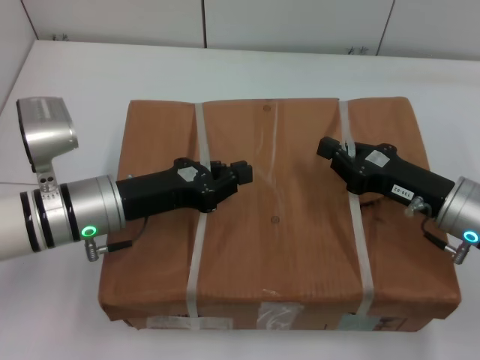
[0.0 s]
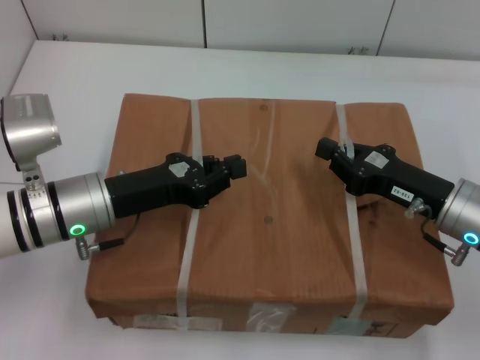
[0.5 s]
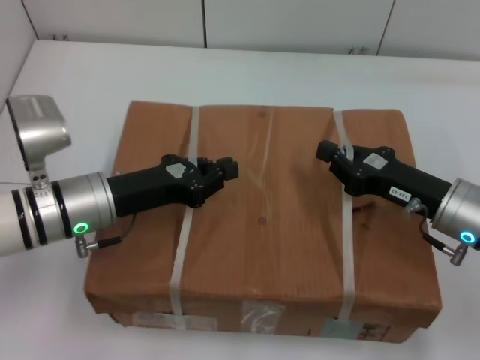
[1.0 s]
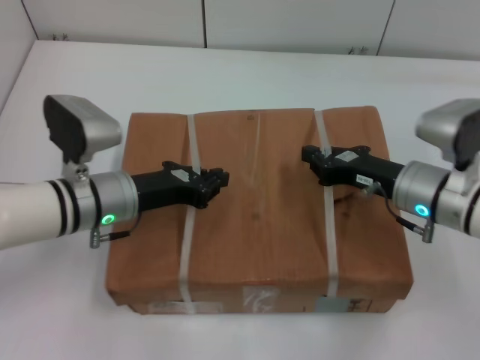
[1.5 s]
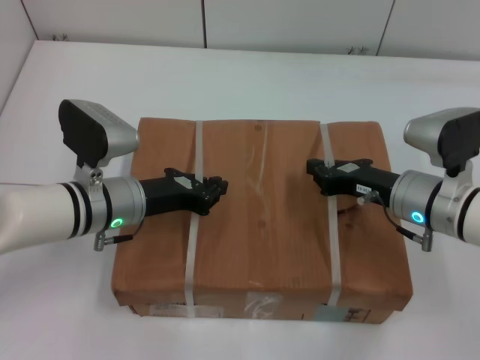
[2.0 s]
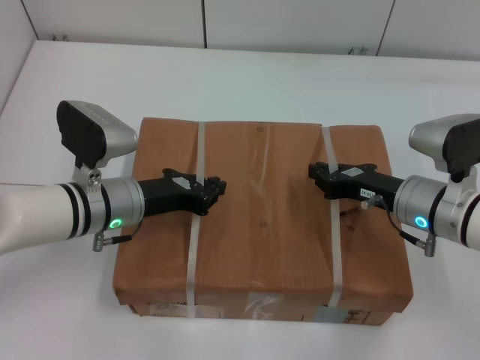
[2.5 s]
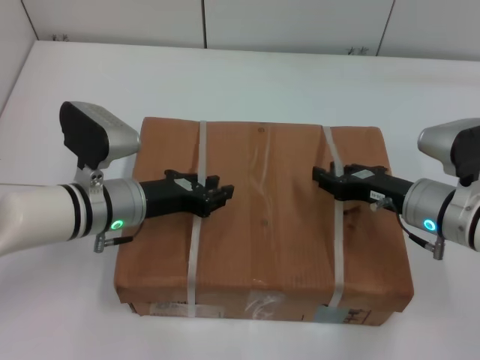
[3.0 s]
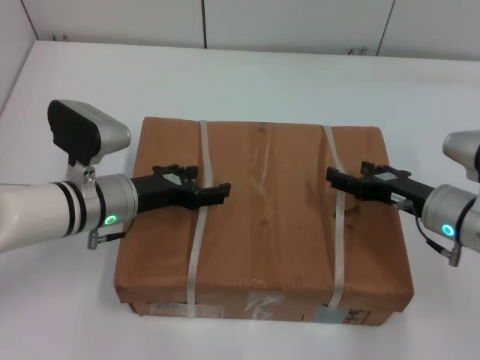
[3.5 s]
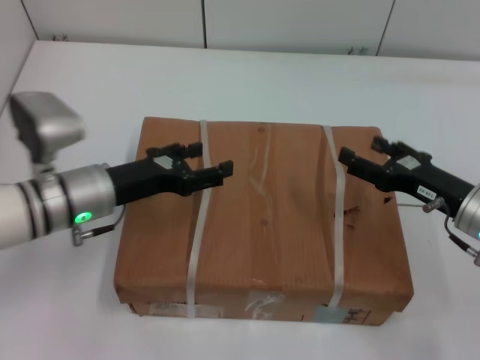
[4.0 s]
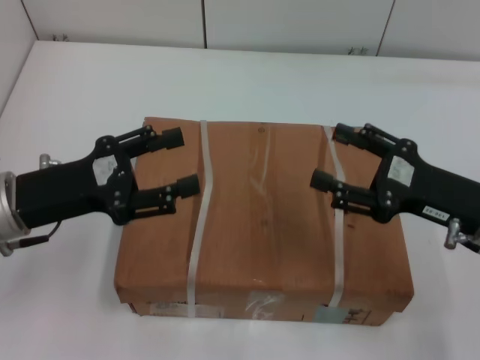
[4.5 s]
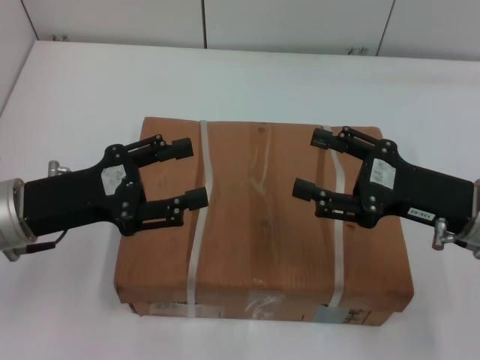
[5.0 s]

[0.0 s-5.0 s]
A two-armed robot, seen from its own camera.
Task of the whole recording: place the box on the table with both arms.
Step, 0.0 to 2.0 s: Place the box on the table with left gripper.
Step, 0.0 to 2.0 s: Place the box on the table with right gripper.
Step, 2.5 to 3.0 s: Loosen the box on the table with left gripper.
Step, 2.5 to 3.0 s: Loosen the box on the table with right gripper.
0.0 to 2.5 s: The right gripper moves some 5 cm.
2.5 to 5.0 s: The left gripper moves to the left, upward and backward, about 10 cm, and opens up. The right gripper is displaced upward and backward by approximately 10 cm, and opens its fingers.
